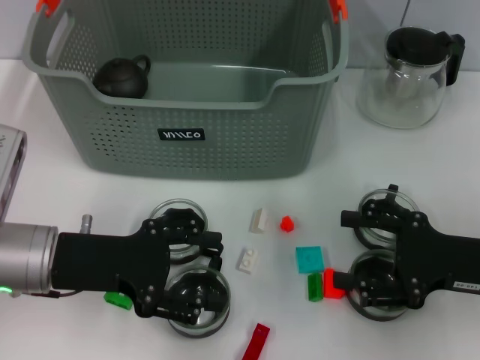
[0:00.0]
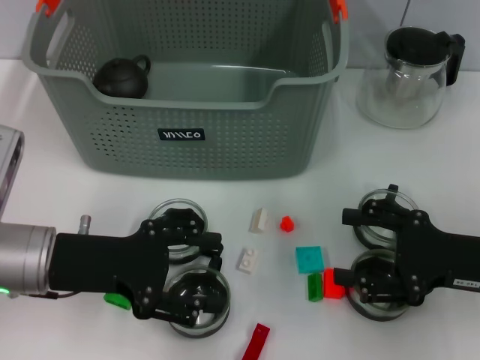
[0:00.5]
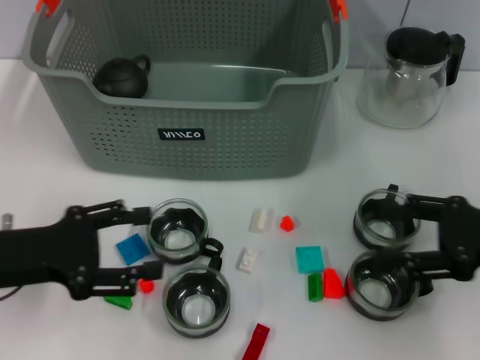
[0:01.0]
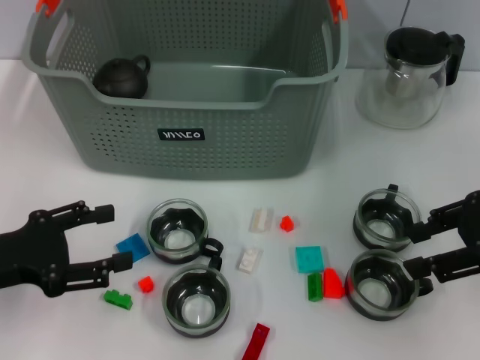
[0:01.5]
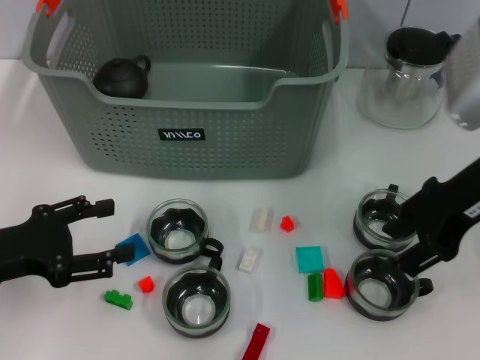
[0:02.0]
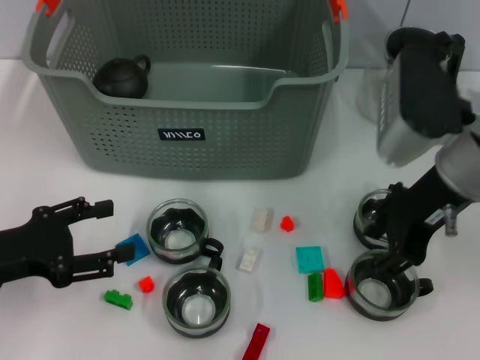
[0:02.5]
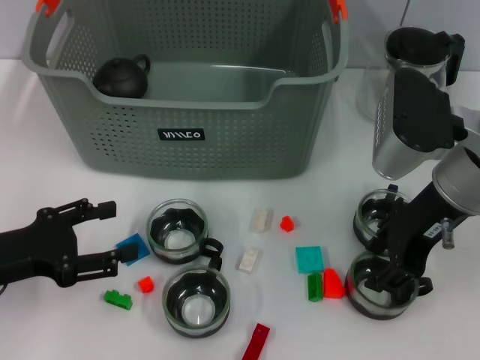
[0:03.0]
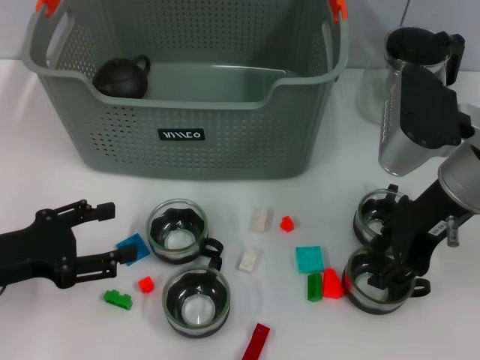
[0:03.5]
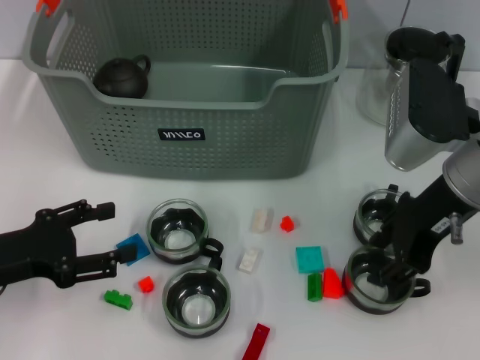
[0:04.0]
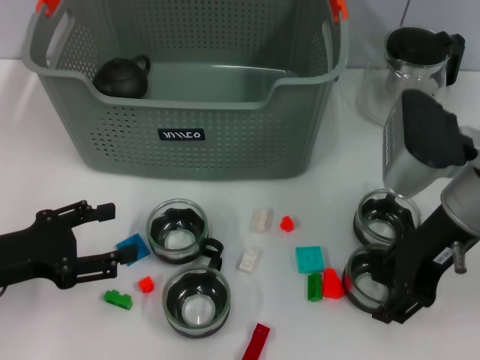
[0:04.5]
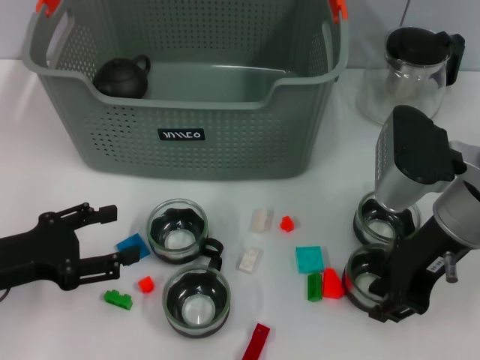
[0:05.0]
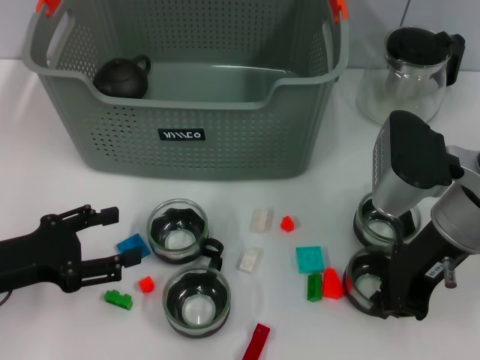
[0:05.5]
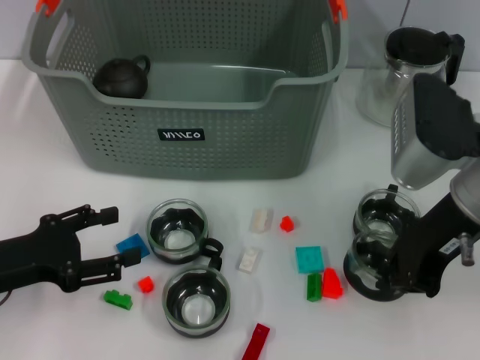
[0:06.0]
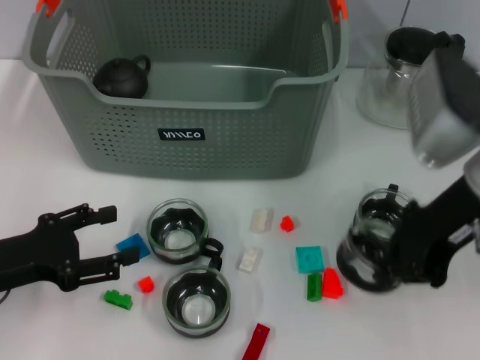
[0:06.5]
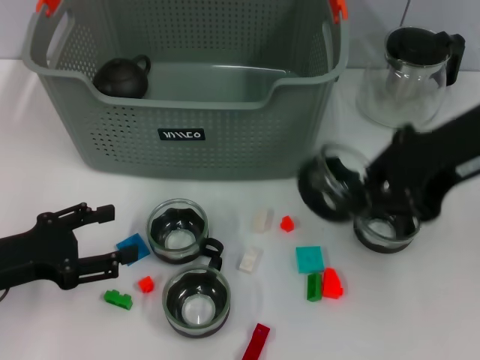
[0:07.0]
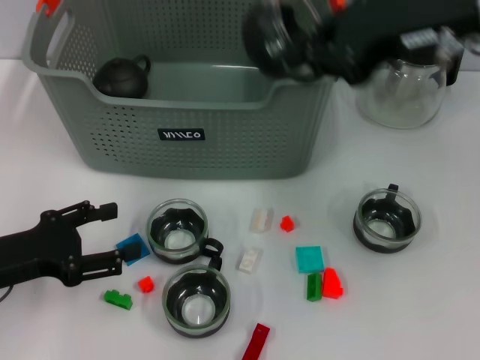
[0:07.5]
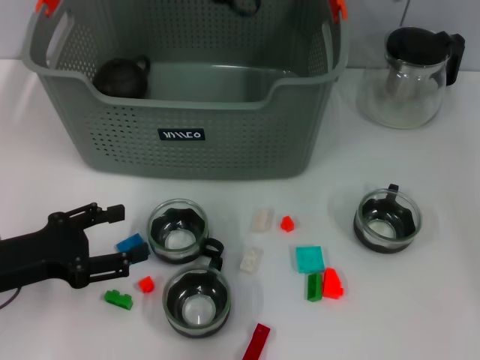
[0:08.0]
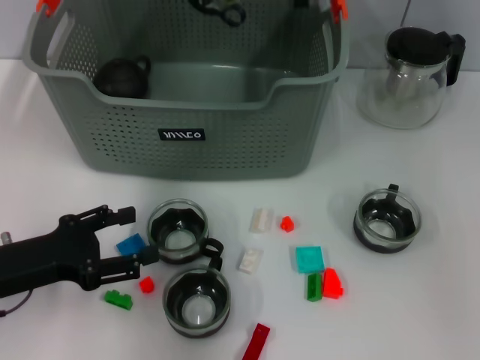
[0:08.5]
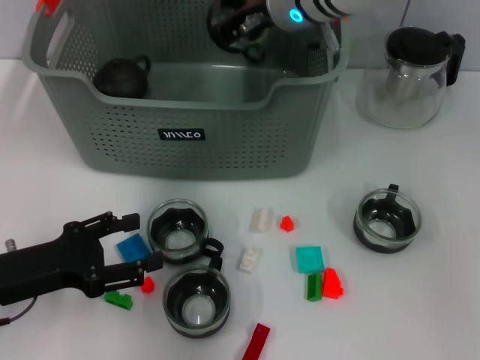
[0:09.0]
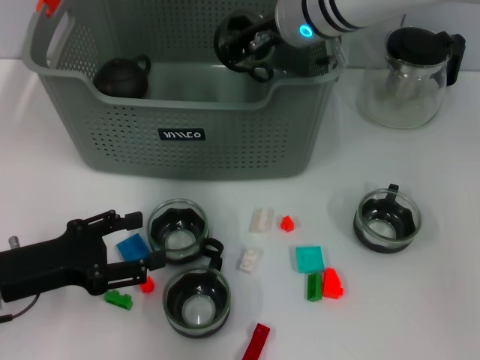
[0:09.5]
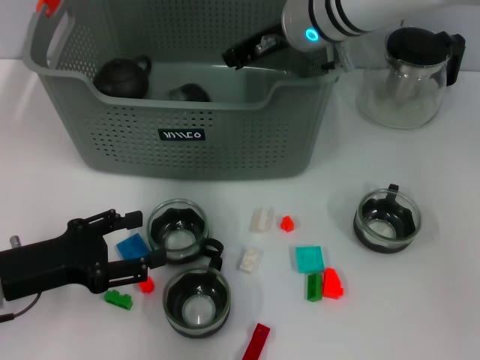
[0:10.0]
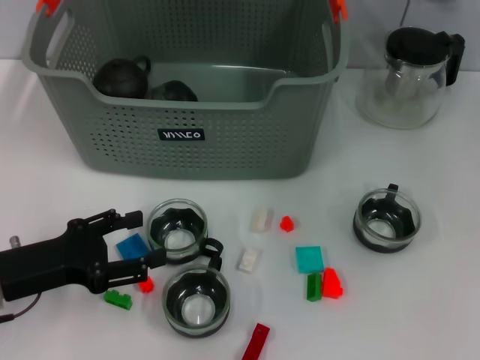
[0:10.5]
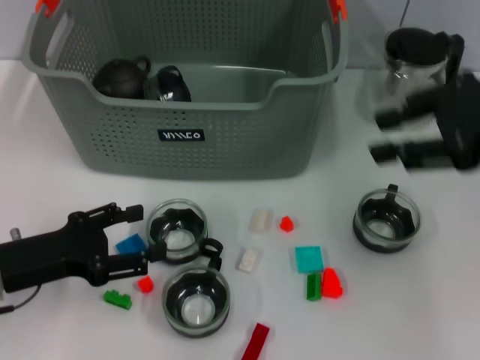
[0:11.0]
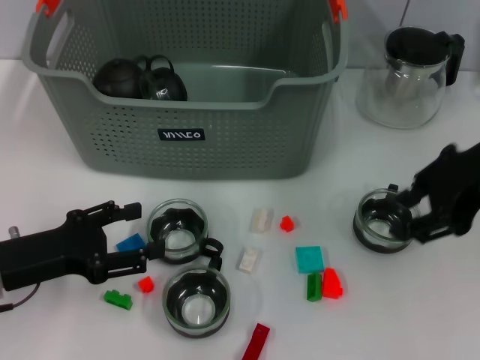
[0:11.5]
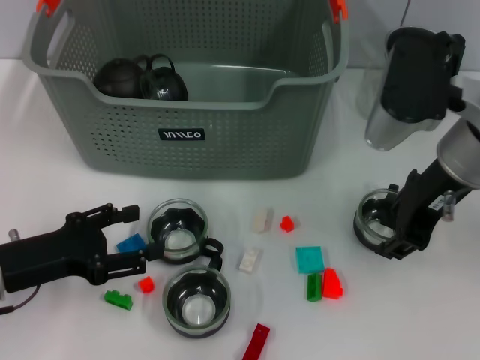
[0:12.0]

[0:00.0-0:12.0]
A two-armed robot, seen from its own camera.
Task of the whole recording: pick up the teacup on the table and place it into the storage bin, pick up the block on the table and place it into the storage bin.
Step, 0:00.0 to 0:05.5: Grasp the cup with right gripper.
Step, 0:06.0 to 0:09.5: Place the cup in the storage box with right gripper.
0:00.0 to 0:02.0: The right gripper shifts roughly 15 cm upward, forward and to the left. The left gripper moves to the left, about 10 cm.
0:02.0 to 0:04.0: The grippers move only a little.
0:04.0 to 0:06.0: The right gripper closes up.
0:06.0 to 0:08.0: The right gripper shifts approximately 20 cm forward, upward and to the left.
0:08.0 to 0:10.0: The right gripper shifts about 10 cm downward.
0:10.0 to 0:12.0: The right gripper heads backward and to the right, covering approximately 15 cm, and opens up.

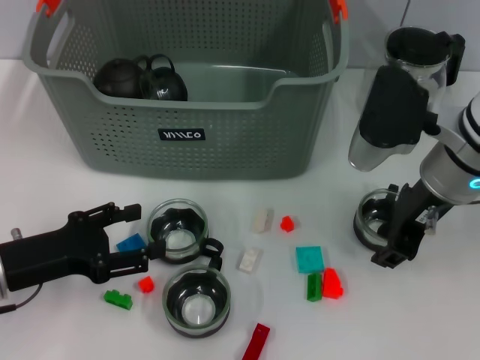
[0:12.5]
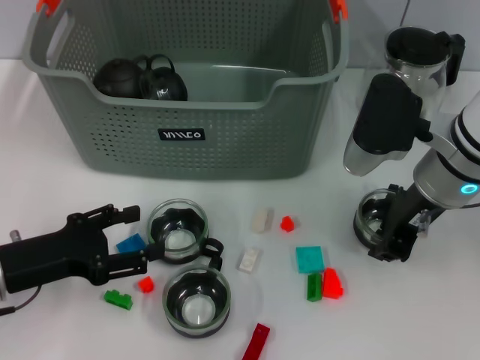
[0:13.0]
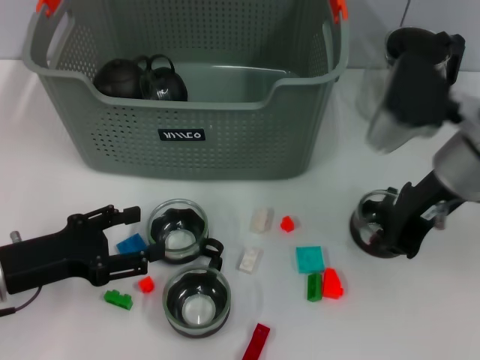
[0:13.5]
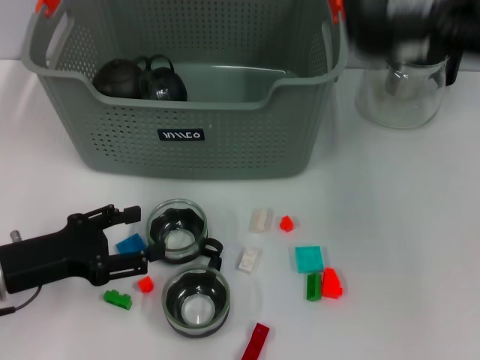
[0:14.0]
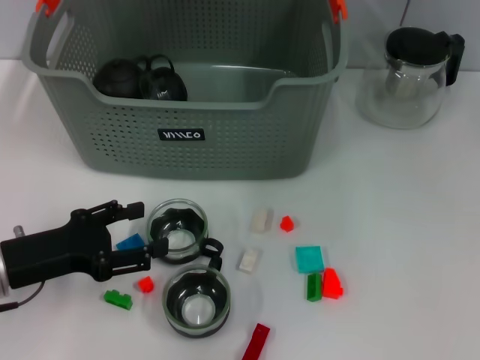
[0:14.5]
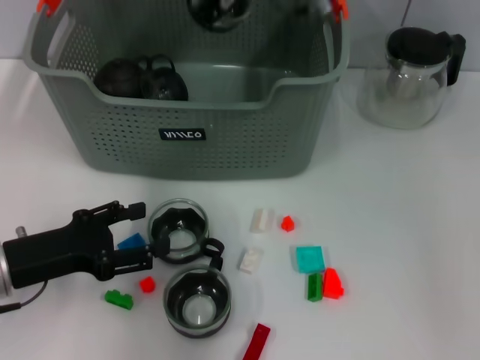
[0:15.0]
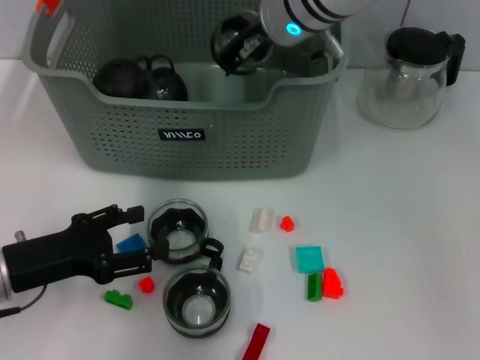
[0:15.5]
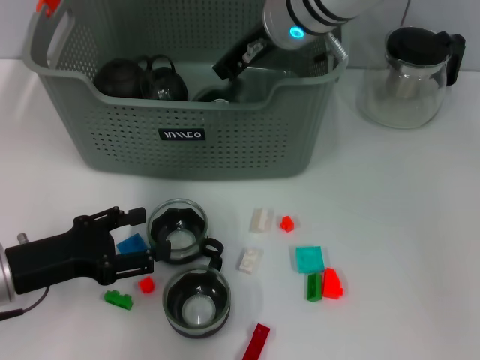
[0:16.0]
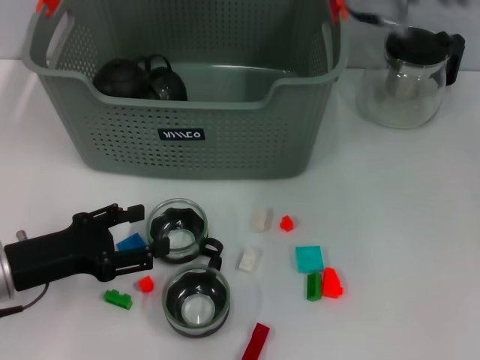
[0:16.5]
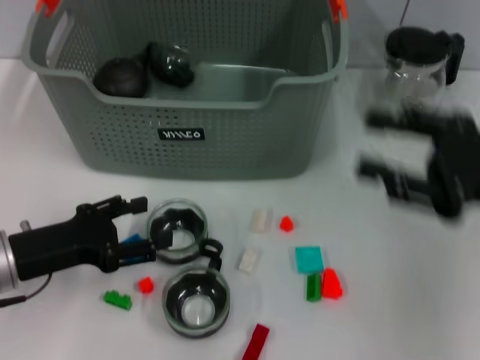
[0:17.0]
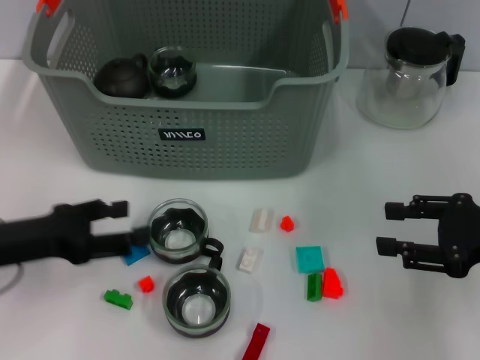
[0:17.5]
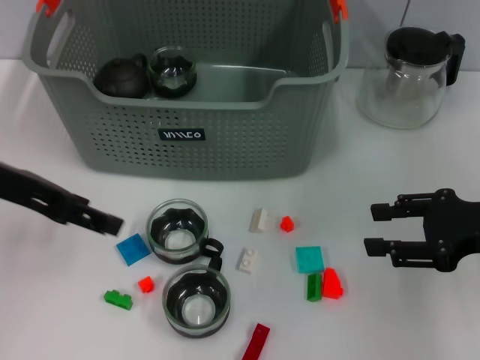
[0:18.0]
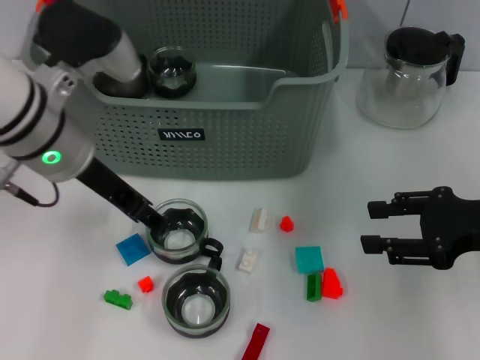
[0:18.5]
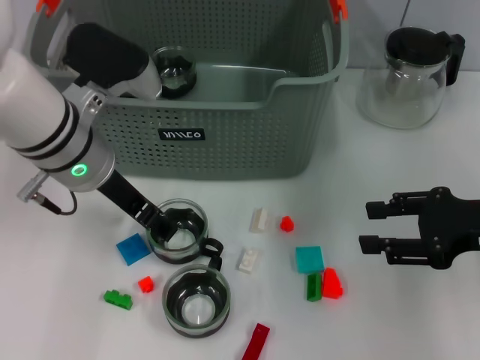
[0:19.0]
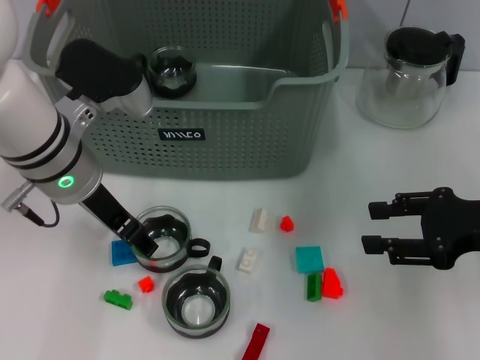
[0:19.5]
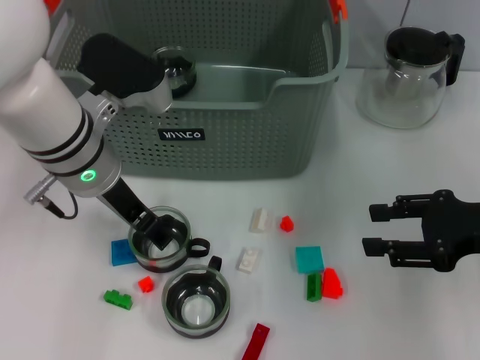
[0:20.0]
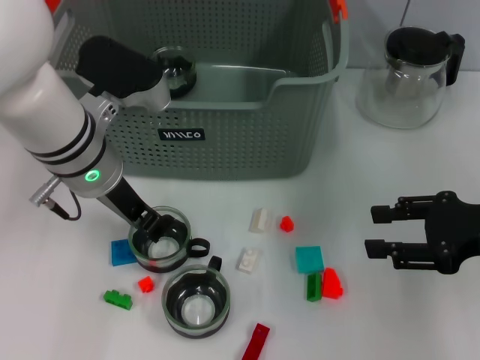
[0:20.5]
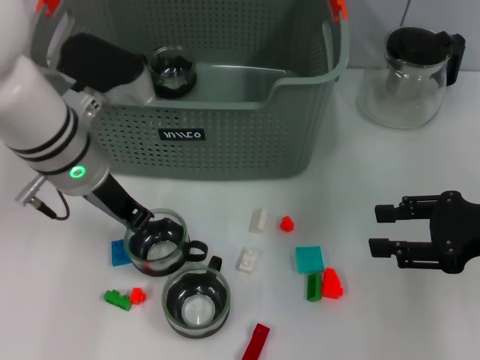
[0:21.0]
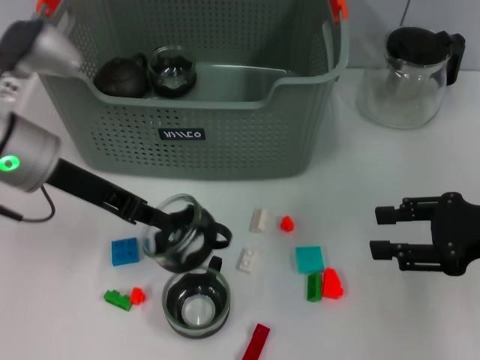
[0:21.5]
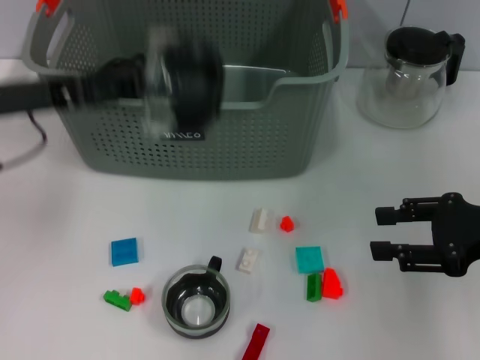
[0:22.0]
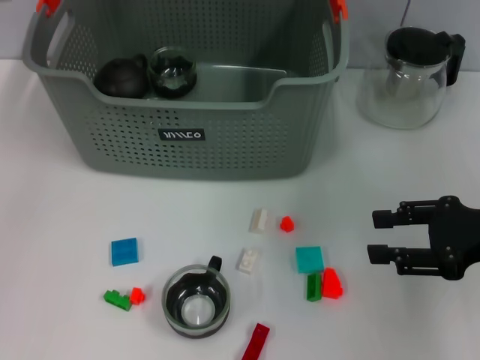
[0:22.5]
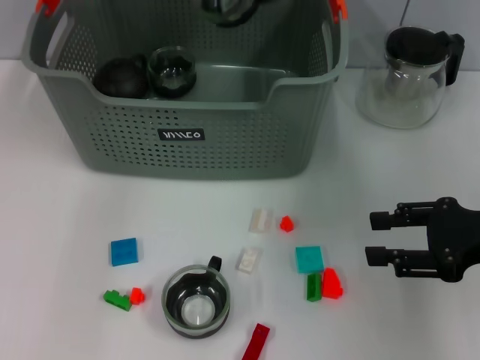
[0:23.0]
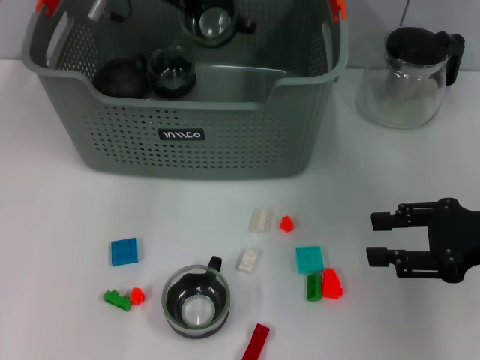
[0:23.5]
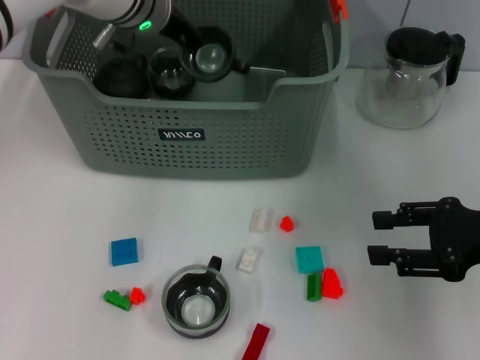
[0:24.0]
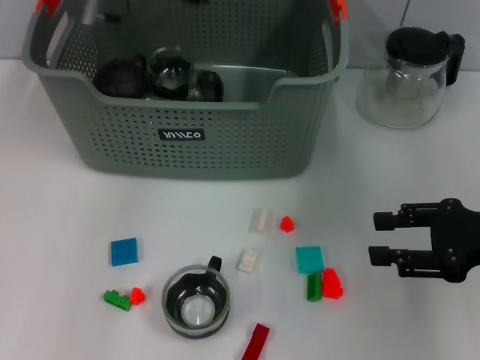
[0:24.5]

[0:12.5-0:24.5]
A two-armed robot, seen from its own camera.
Task of the whole recording: pick up the teacup on the table and place it into the storage bin, pick up the block on the table and place it into the storage bin.
Step, 0:13.5 to 0:16.0: Place the cup in the storage box with right gripper.
Step, 0:16.5 to 0:20.5: Grasp the cup with left gripper.
Step, 0:21.0 to 0:24.0: Place the cup in the storage box with left gripper.
0:12.5 to 0:14.5: The right gripper shifts roughly 15 cm upward and forward, and closes.
0:16.5 to 0:18.5: The right gripper is displaced to the right, downward and backward by about 25 cm; the left gripper travels upward, to the right and forward by some 20 cm.
0:18.5 to 0:20.5: The grippers move only a little.
0:20.5 to 0:22.5: The left gripper heads upward, to the left and forward, covering roughly 15 cm, and closes.
0:22.5 to 0:24.5: The left gripper is displaced to the right by roughly 10 cm.

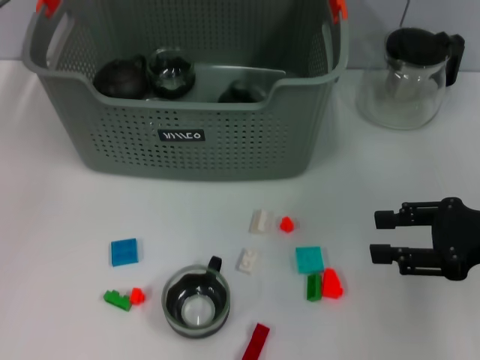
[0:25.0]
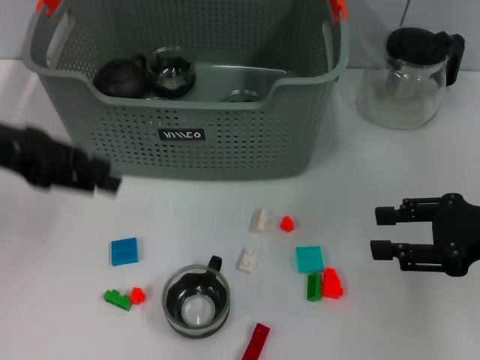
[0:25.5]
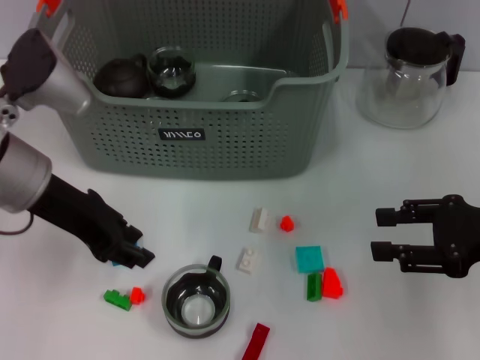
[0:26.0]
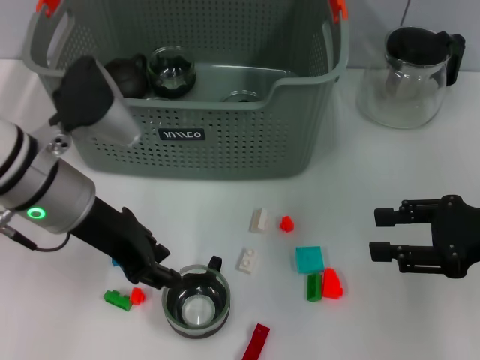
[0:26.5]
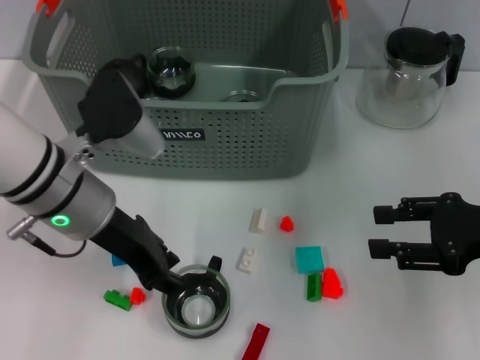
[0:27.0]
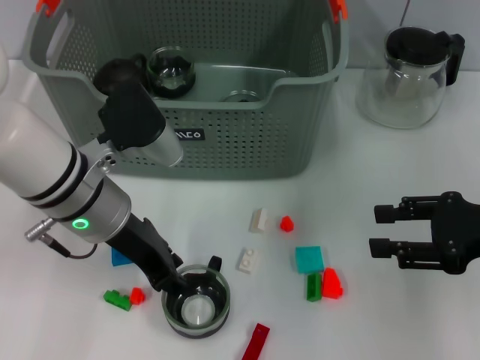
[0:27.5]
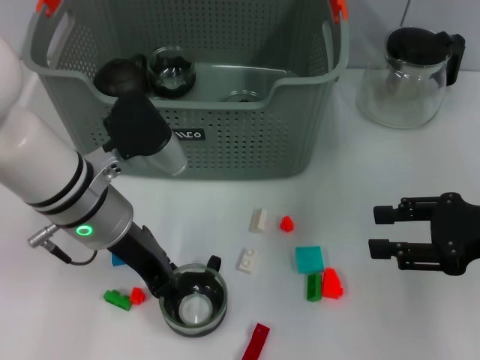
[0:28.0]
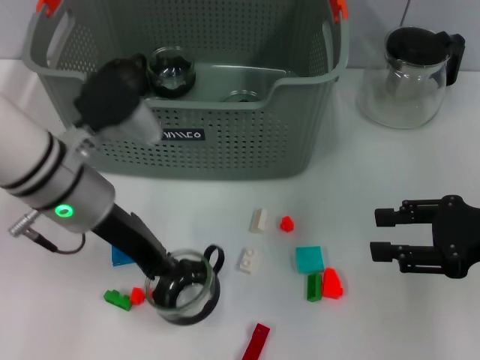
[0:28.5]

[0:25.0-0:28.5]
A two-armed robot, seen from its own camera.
Task of the whole recording: pick up the teacup on the table and place it into the storage bin, pick up the block on the table and place it into the storage bin.
Step, 0:25.0 to 0:28.0: Grasp the cup with left gripper.
0:25.0 to 0:27.0: The left gripper heads downward, to the right and backward, covering approximately 15 cm.
0:27.0 to 0:28.5: The left gripper closes.
